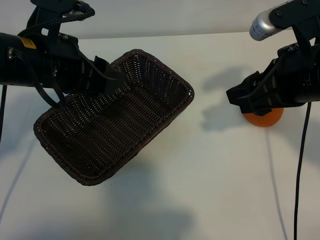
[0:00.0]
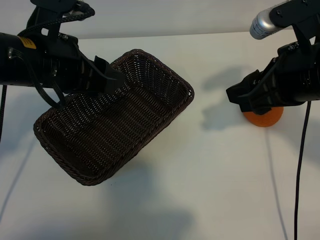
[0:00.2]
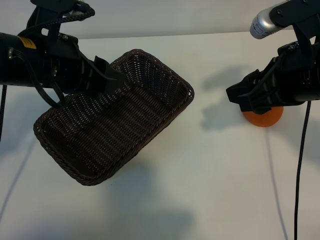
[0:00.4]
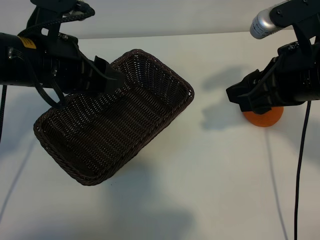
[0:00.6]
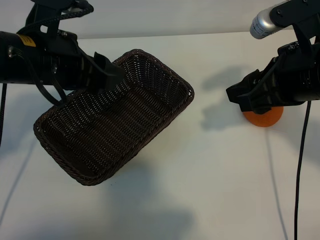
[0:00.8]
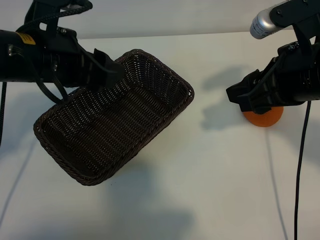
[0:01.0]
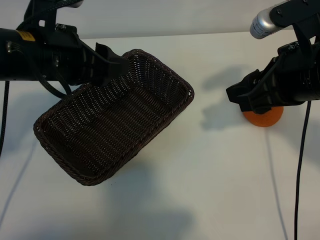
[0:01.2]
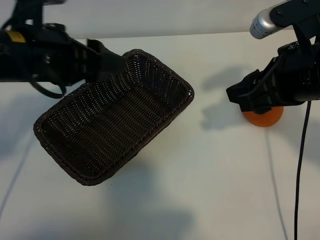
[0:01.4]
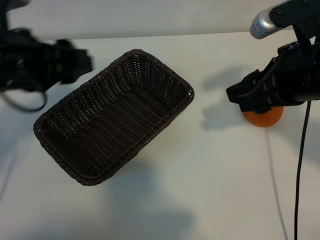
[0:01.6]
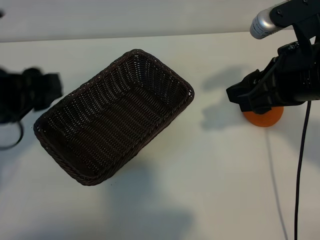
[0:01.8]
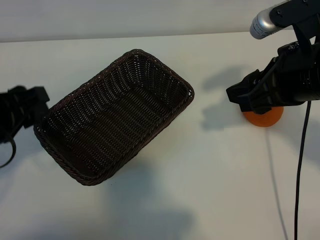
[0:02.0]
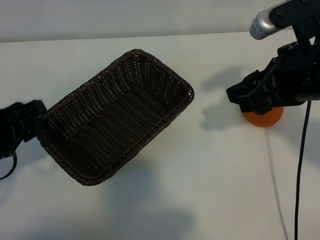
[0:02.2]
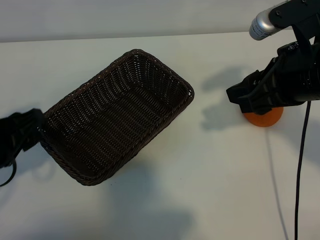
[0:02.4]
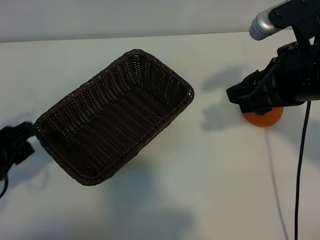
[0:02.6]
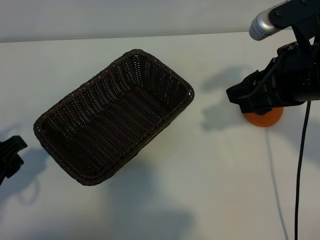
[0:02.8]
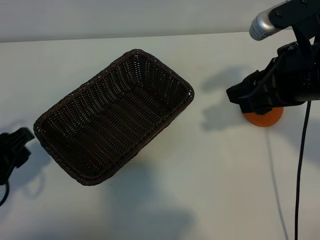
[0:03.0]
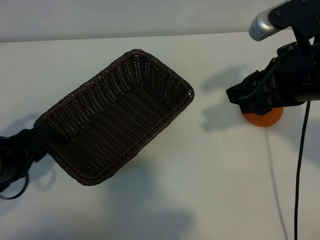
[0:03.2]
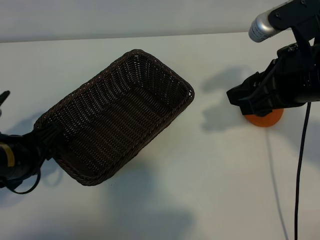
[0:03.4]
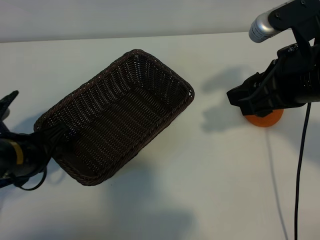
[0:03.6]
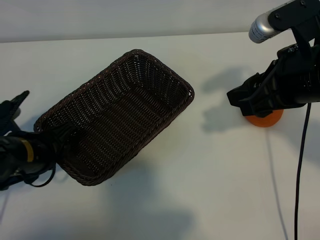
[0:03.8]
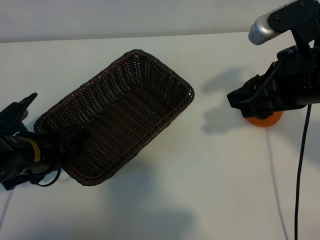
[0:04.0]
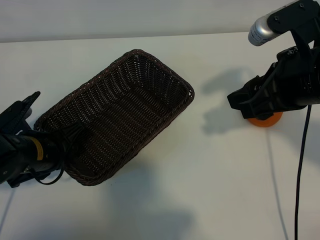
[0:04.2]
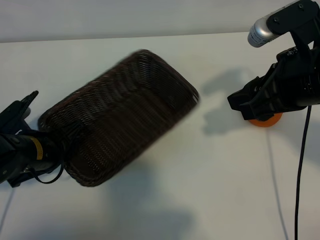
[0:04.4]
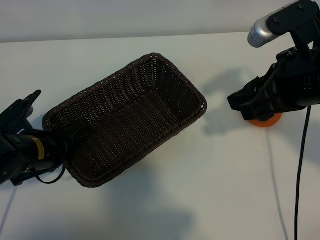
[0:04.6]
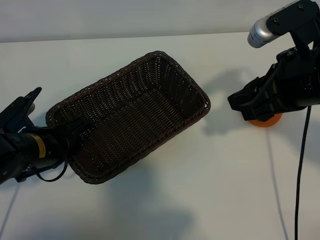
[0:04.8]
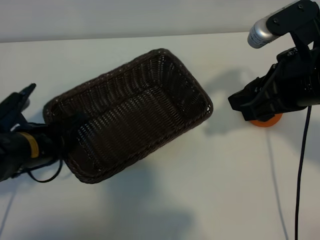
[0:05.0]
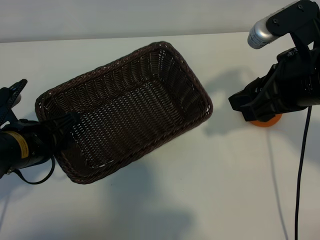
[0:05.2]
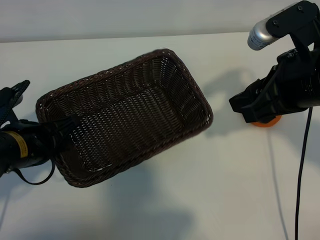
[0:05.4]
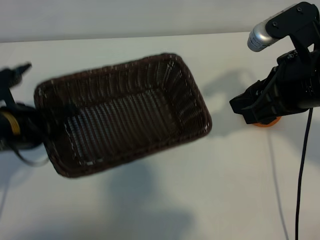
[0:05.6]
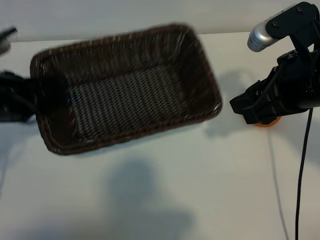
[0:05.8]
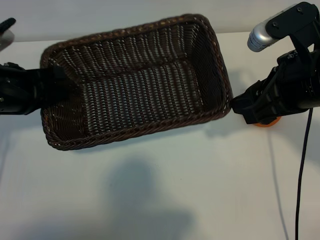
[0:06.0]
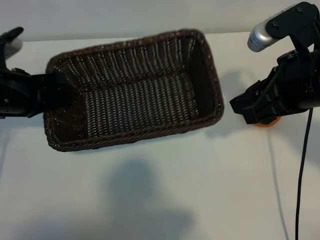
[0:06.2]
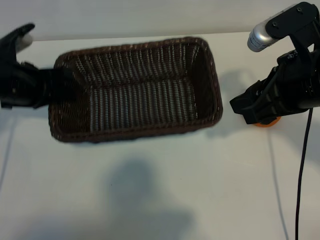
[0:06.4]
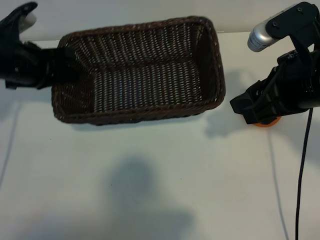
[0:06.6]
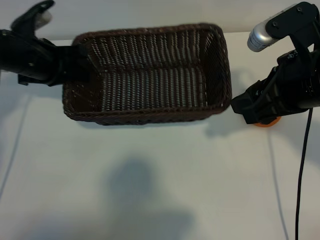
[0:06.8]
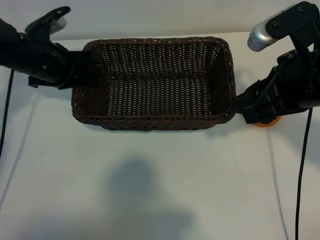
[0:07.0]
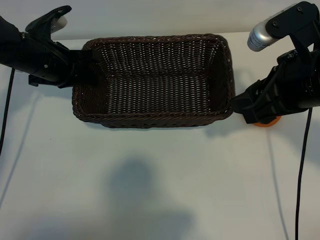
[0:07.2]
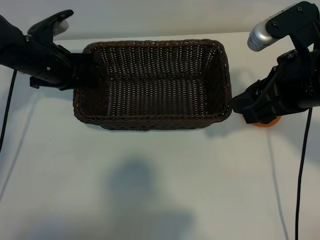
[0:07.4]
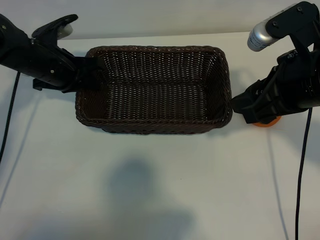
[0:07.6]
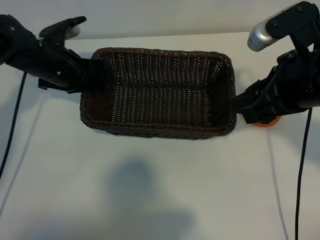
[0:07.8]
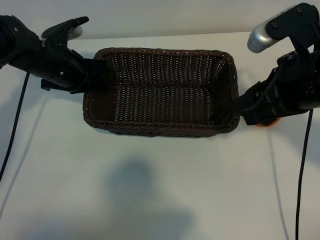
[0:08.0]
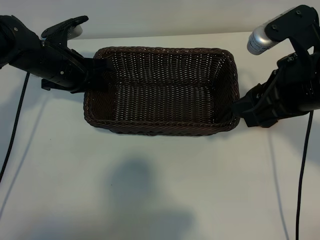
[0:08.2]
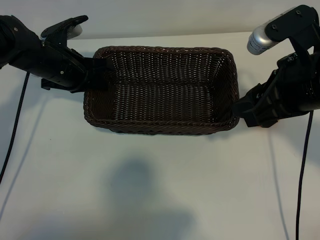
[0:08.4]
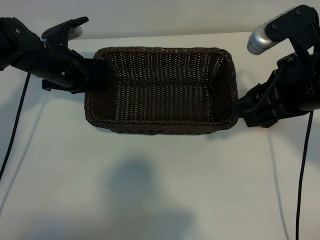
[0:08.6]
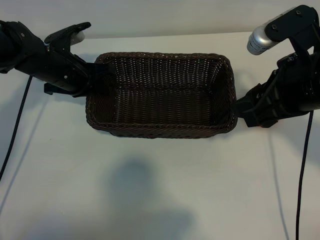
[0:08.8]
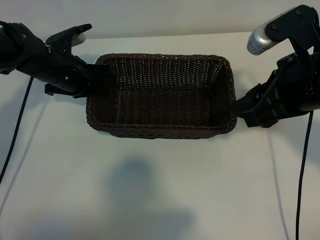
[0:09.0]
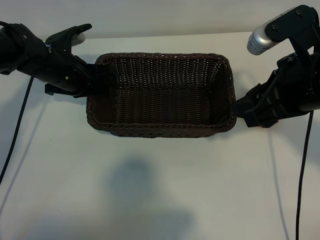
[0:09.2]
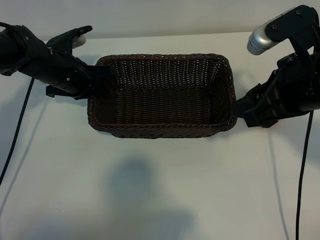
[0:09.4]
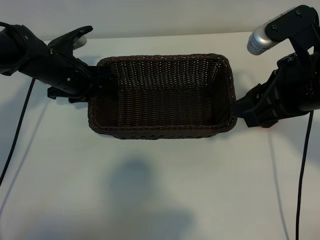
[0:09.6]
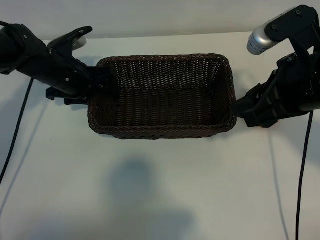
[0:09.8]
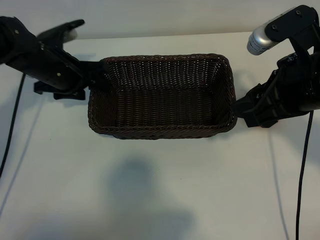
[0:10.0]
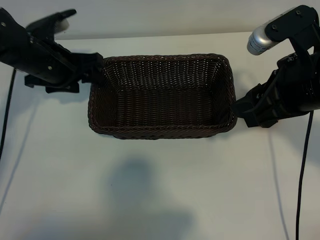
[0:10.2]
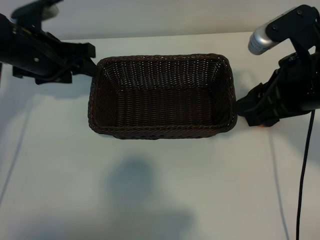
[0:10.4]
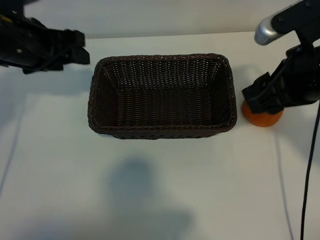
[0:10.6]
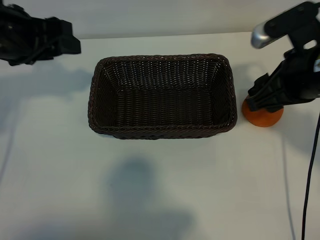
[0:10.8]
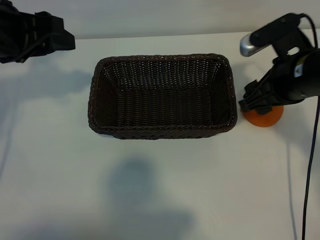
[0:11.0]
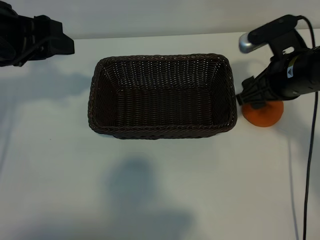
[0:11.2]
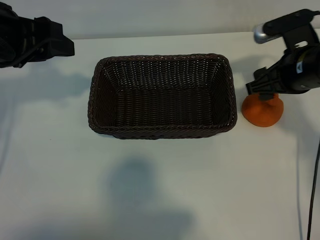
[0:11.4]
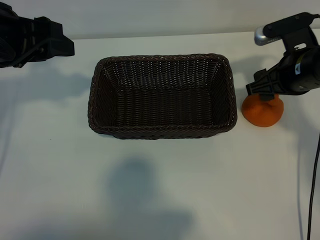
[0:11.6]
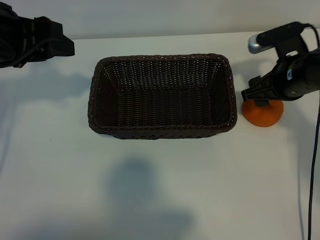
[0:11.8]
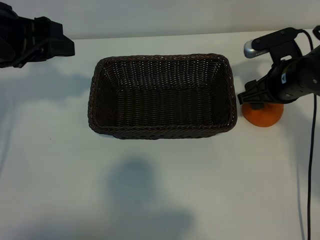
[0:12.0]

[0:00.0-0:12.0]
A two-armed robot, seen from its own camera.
Task of the whole recording: pick up the orange and put it into the basket.
Step, 0:00.6 to 0:04.6: Grasp the basket with left gripper.
Step, 0:04.8 to 0:09.8: Place the basket in the center of view with left gripper.

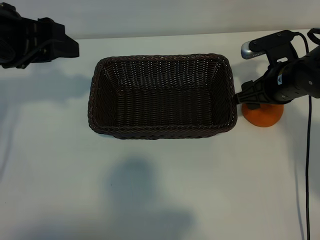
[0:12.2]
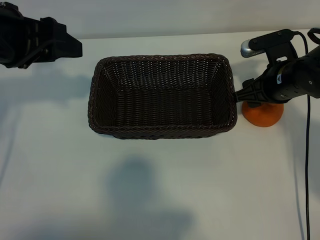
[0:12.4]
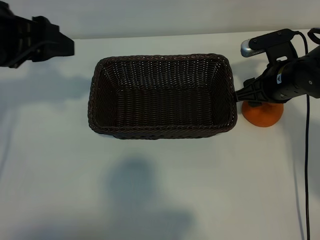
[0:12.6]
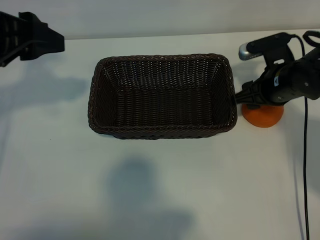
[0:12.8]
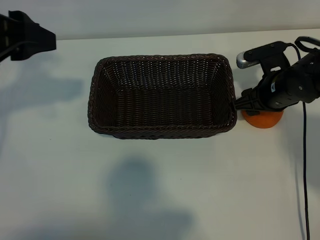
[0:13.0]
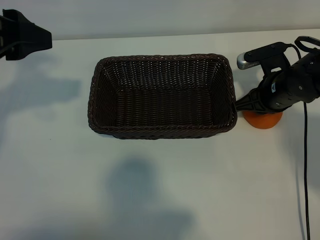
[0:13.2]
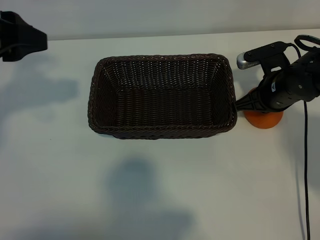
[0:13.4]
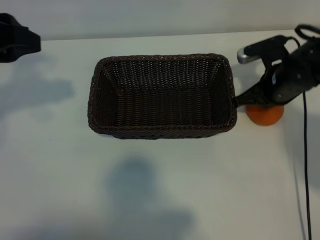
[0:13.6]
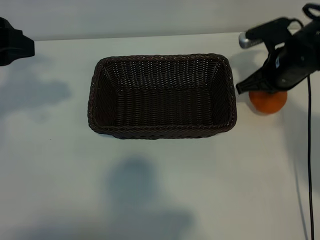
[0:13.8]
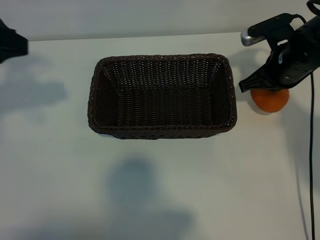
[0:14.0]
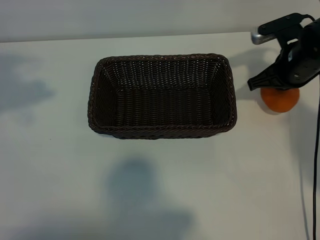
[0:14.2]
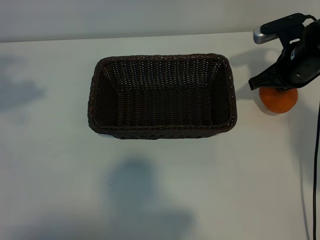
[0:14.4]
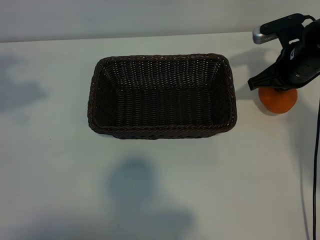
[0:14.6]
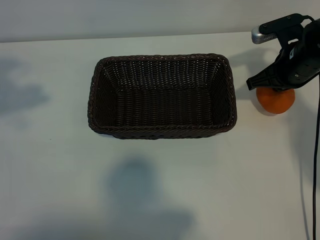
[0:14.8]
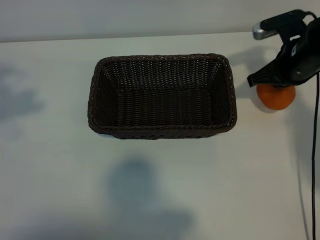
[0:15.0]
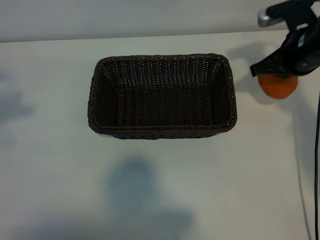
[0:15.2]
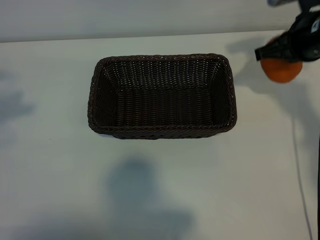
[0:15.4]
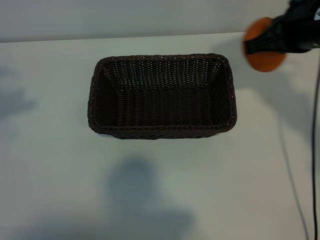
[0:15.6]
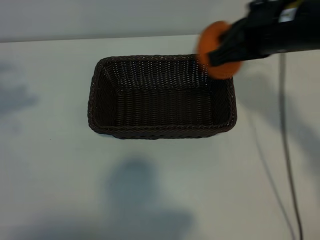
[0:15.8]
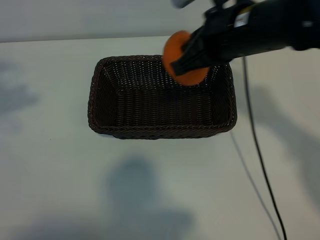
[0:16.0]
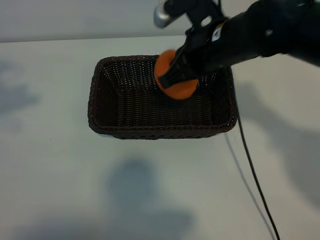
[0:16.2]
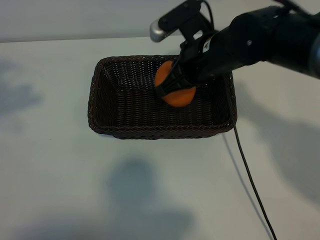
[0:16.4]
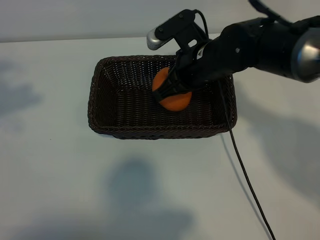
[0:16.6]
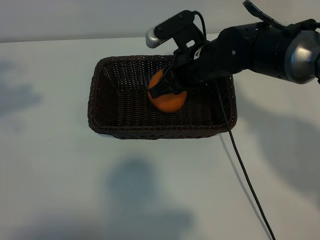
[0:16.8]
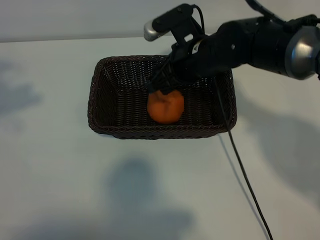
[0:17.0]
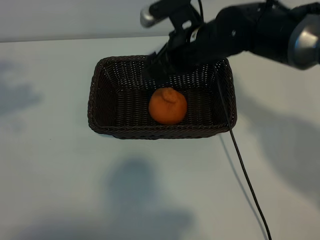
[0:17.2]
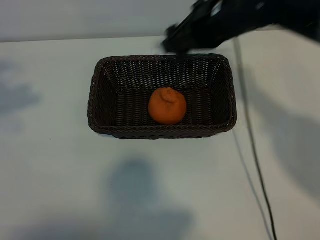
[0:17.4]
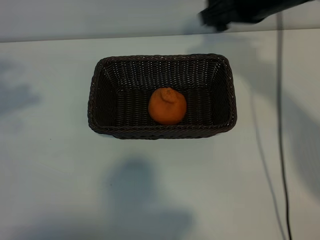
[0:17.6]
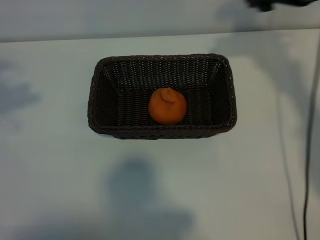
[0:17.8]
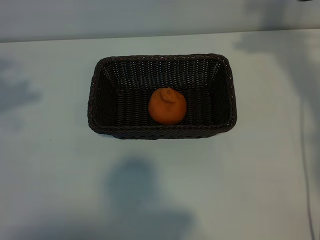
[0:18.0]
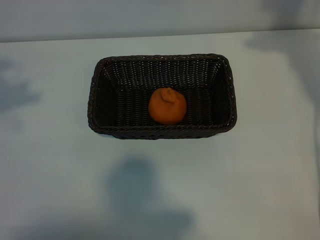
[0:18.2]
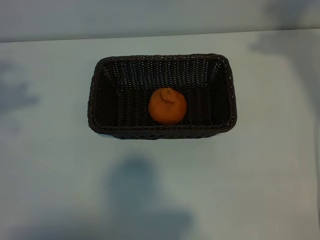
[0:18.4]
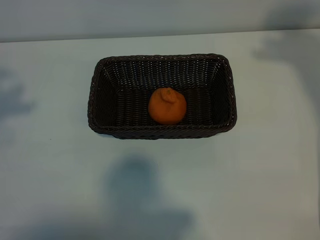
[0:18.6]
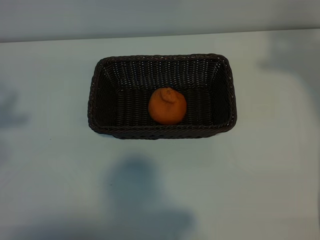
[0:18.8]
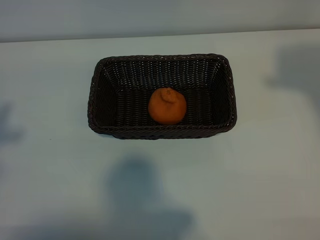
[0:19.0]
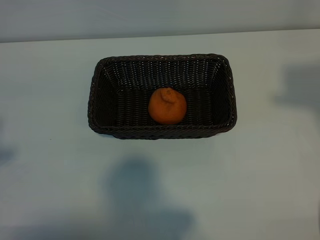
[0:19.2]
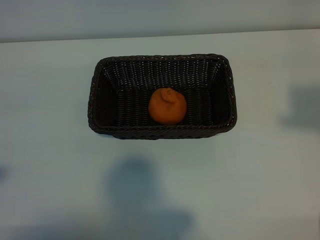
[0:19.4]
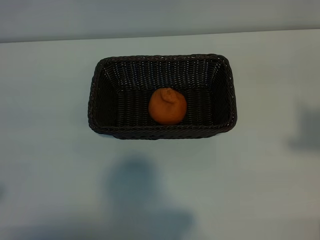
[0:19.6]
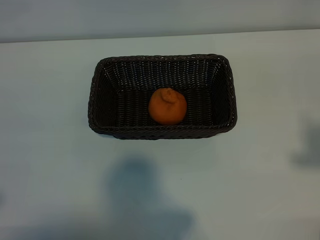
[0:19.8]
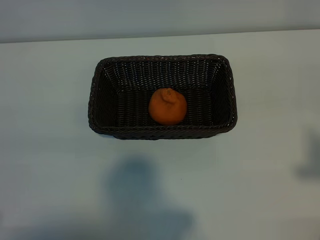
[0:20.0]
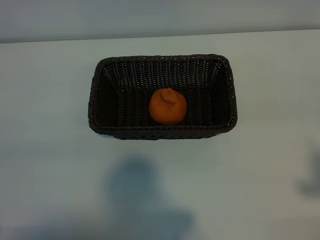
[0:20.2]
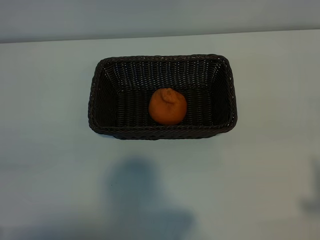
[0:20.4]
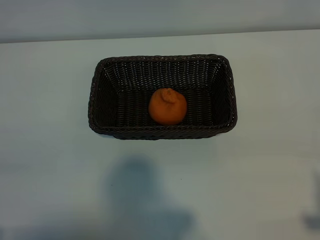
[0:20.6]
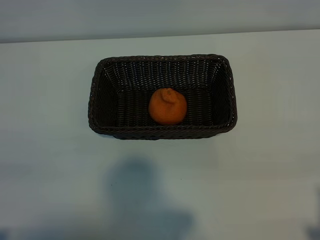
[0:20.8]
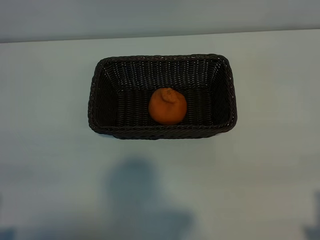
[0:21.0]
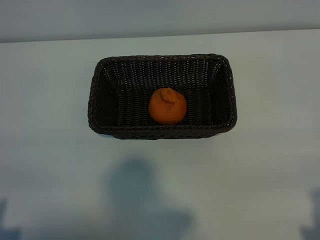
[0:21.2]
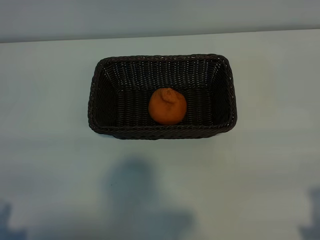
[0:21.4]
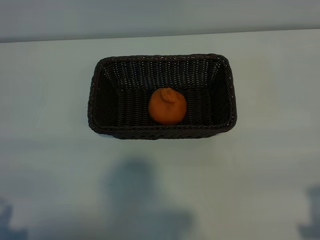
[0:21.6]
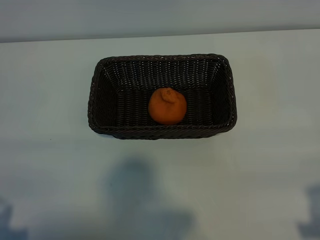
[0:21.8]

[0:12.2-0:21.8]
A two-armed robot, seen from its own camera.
Task of the whole recording: pick up the orange and put it into the basket.
Step, 0:13.6 to 0:17.0: Place the orange in the basket with right gripper.

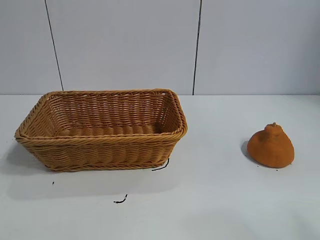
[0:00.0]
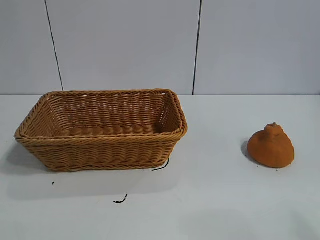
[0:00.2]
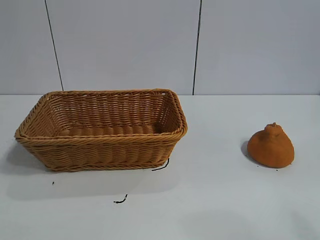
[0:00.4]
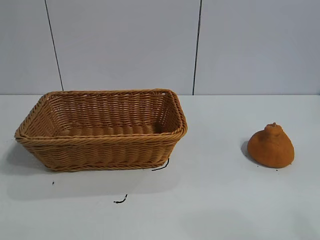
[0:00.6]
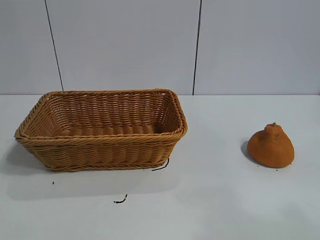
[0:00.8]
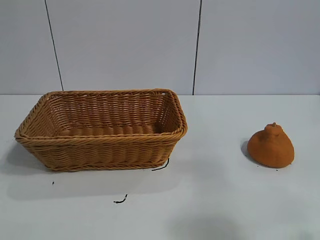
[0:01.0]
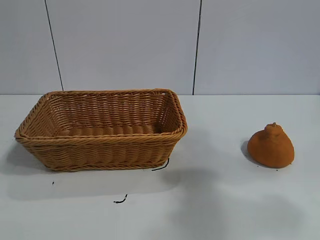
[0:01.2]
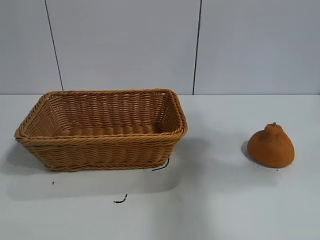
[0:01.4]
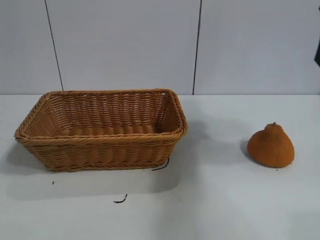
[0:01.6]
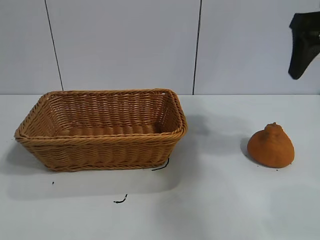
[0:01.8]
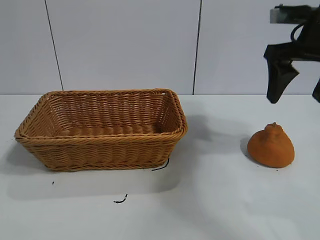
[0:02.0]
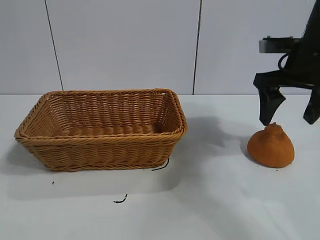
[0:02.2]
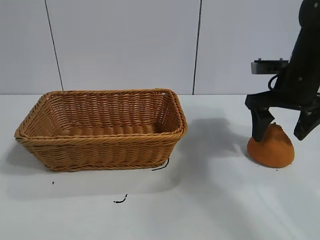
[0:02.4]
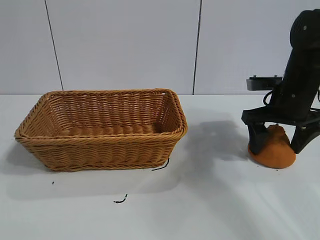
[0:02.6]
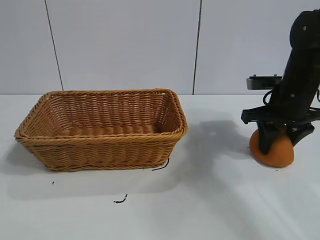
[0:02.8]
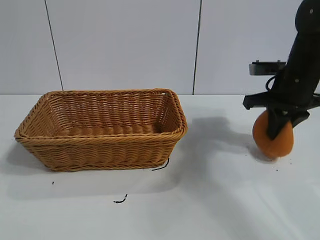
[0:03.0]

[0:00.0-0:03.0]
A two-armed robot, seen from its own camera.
Task of the whole recording: pick up the orange and put it into the basket.
Step, 0:00.8 to 0:02.8: Grasp the orange with right gripper.
